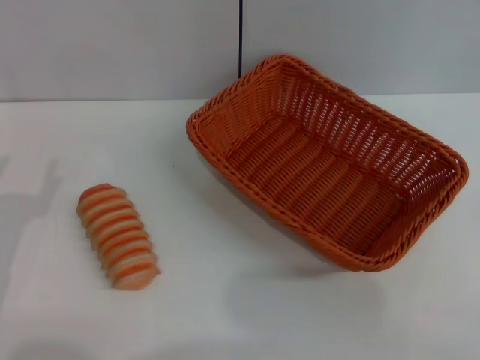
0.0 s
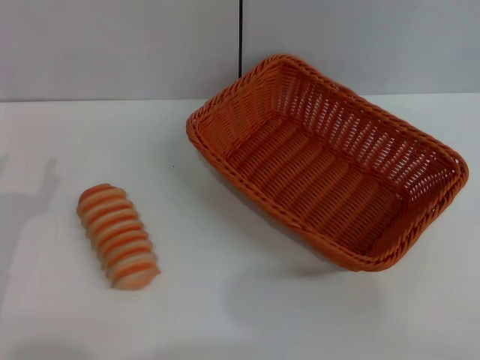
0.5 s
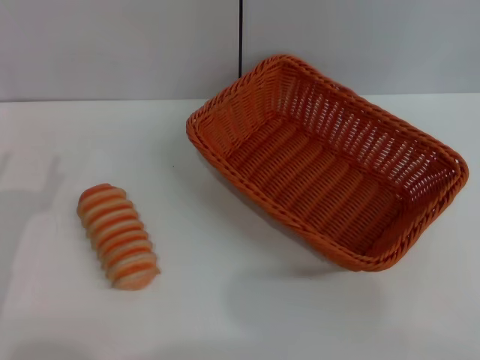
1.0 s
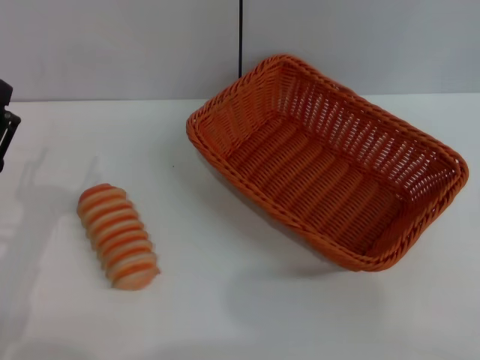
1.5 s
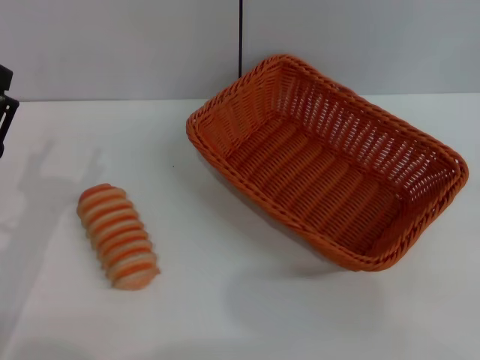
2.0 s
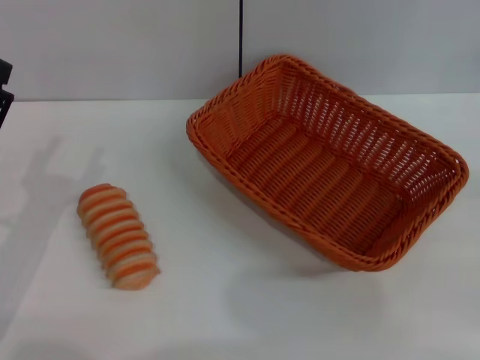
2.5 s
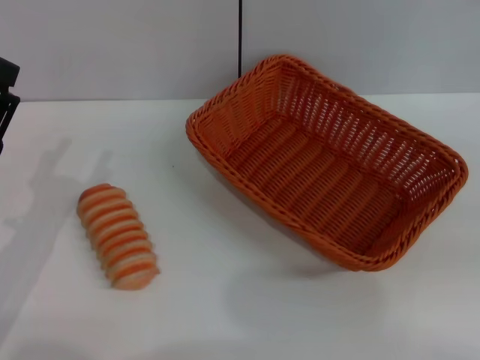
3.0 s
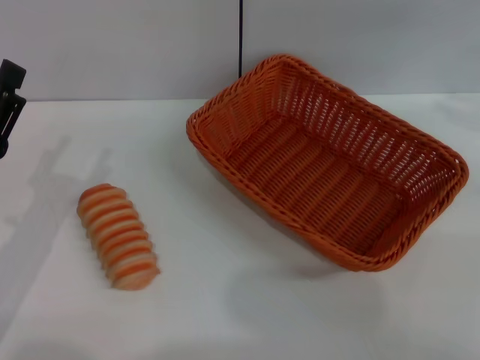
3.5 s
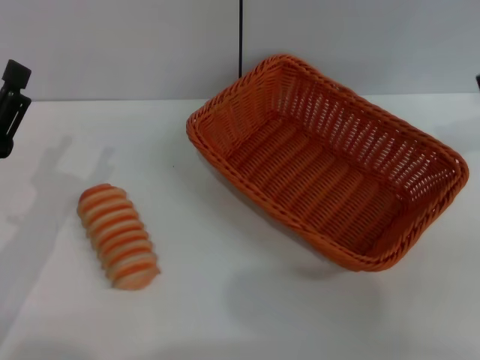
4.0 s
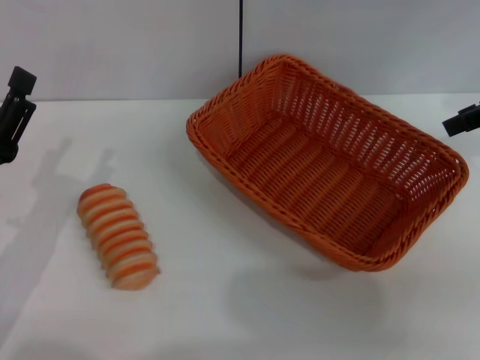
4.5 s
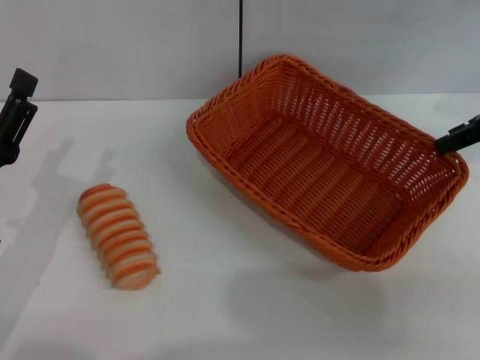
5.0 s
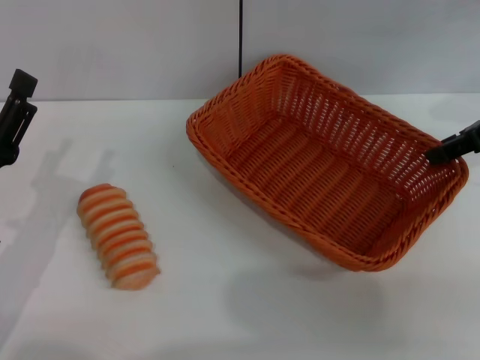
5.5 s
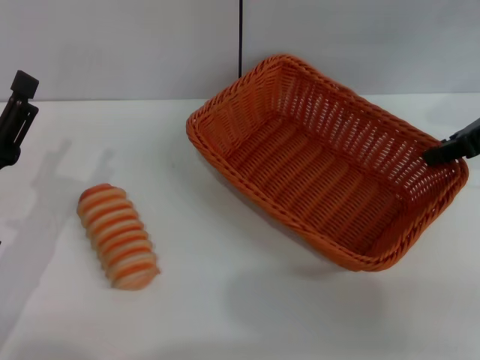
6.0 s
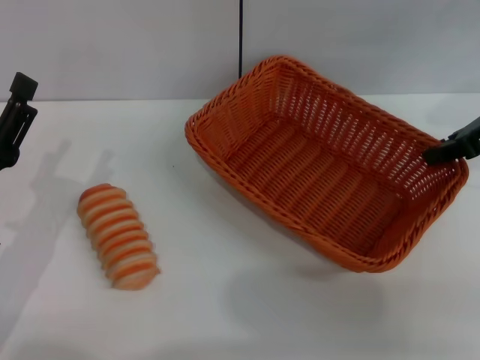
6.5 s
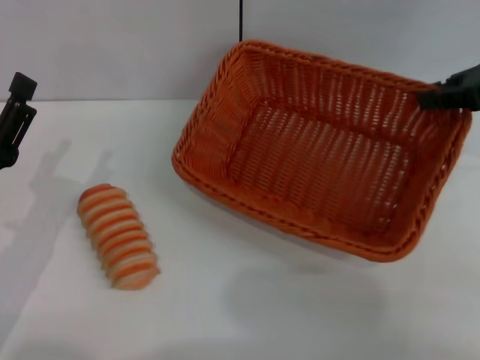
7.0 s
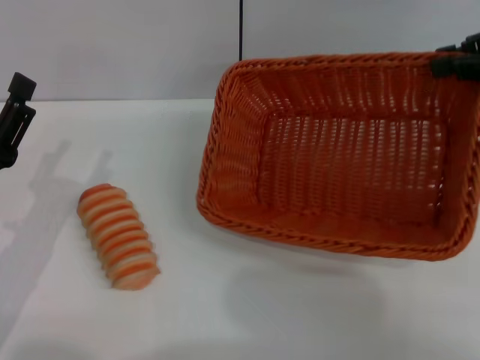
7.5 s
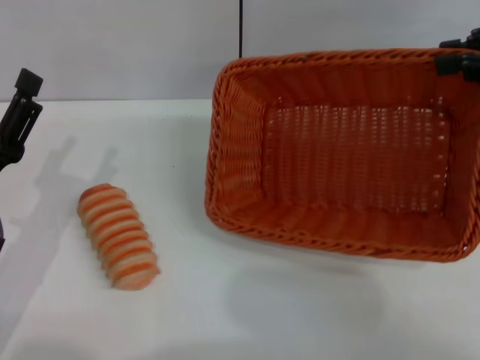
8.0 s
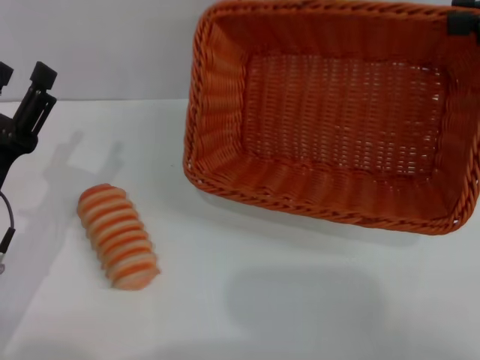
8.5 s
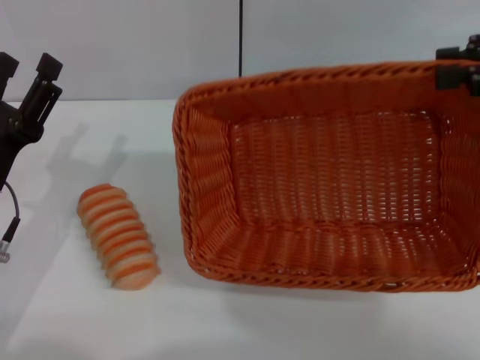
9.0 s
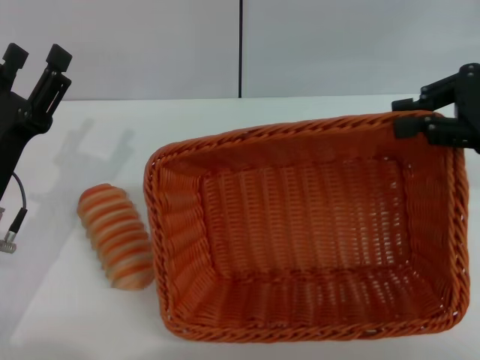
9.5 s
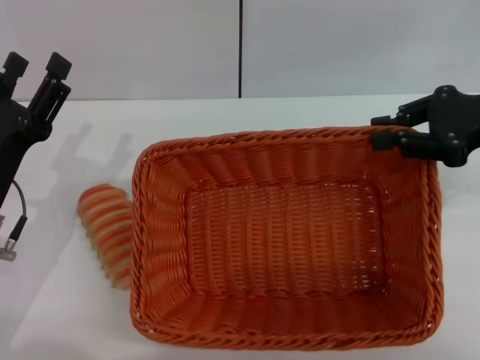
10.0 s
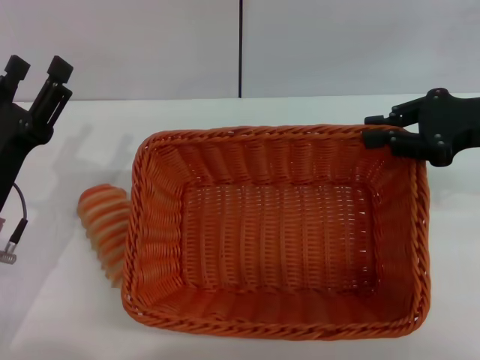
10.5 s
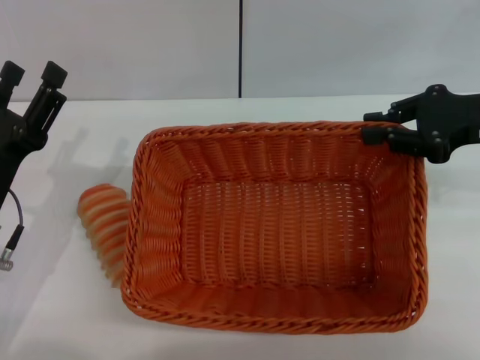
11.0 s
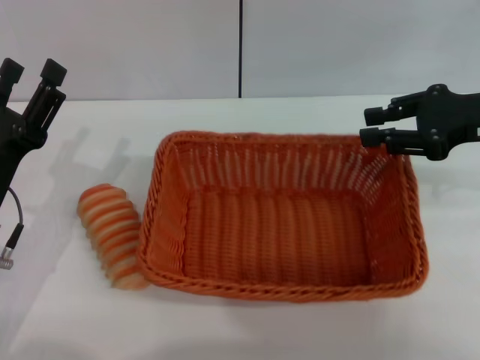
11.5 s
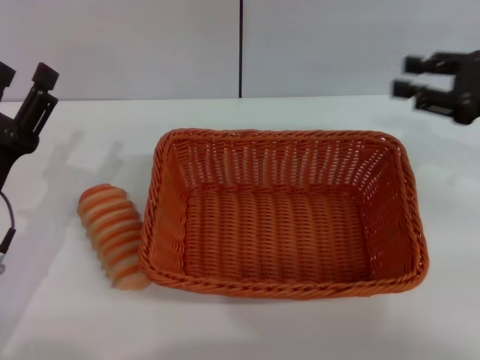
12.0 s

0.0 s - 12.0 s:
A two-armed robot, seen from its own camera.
Step, 0.0 s - 8.0 s: Pick up the light basket with the right gripper.
2.0 s - 4.0 s: The right gripper goes roughly 25 cm upward, forward and to the left.
4.0 s - 6.0 s: The right gripper moves downward, about 10 cm, and closes.
6.0 s - 8.0 s: The right gripper travels upward by some 5 cm, and closes its fingers.
8.0 s - 10.0 s: The right gripper is displaced downward by about 10 cm.
10.0 s - 12.0 s: The right gripper opens up.

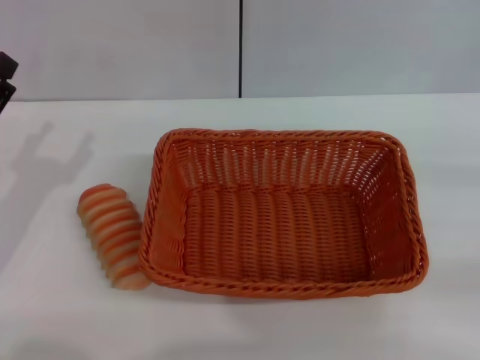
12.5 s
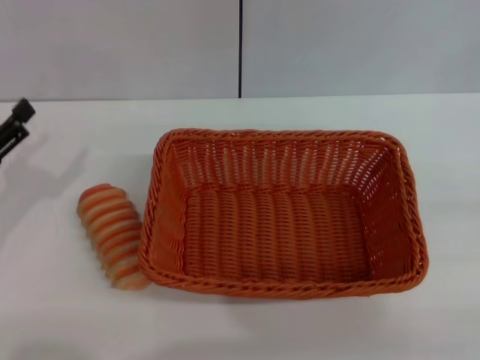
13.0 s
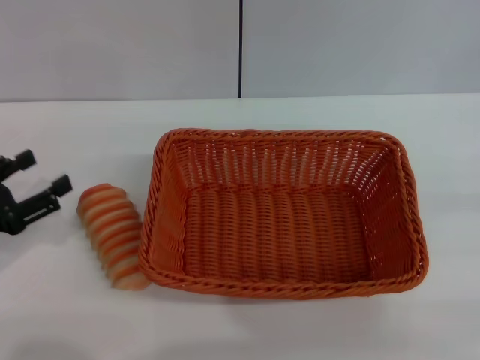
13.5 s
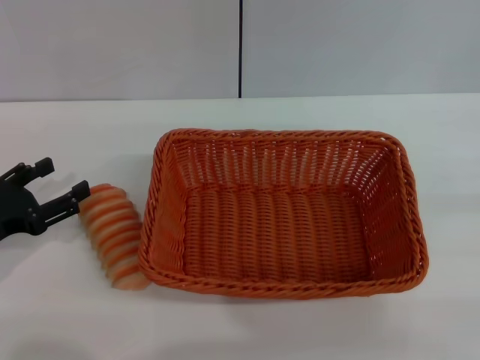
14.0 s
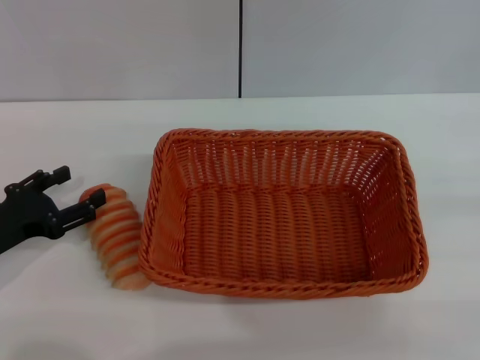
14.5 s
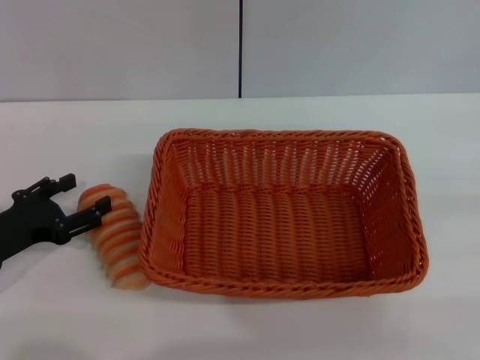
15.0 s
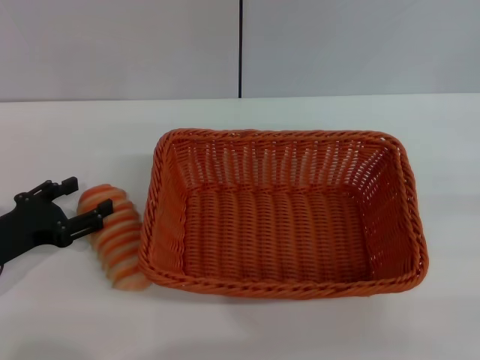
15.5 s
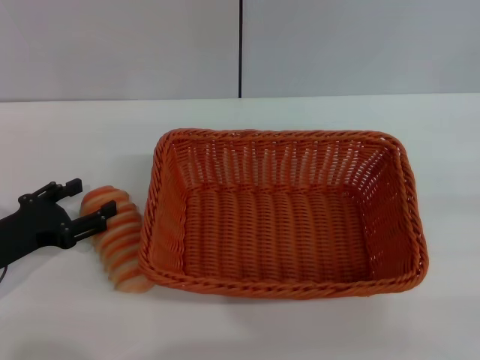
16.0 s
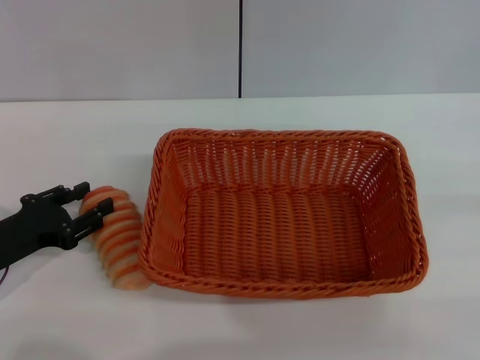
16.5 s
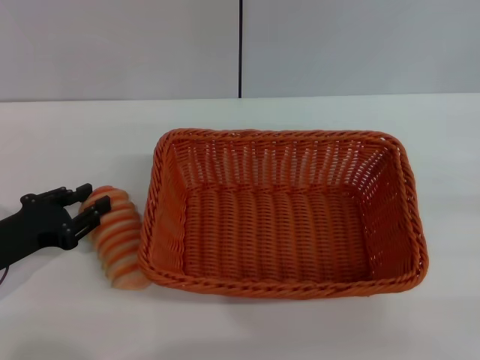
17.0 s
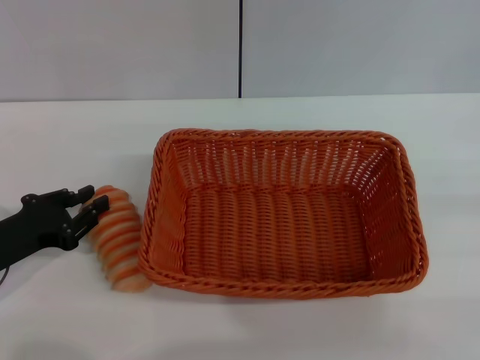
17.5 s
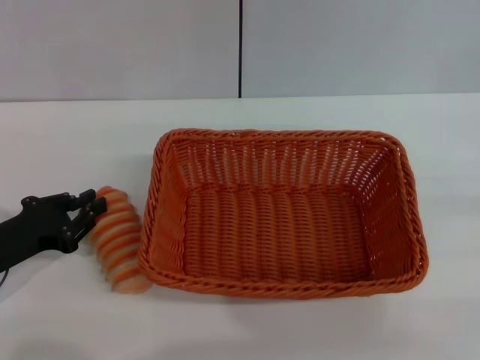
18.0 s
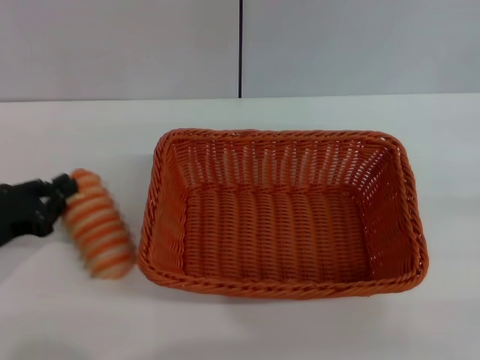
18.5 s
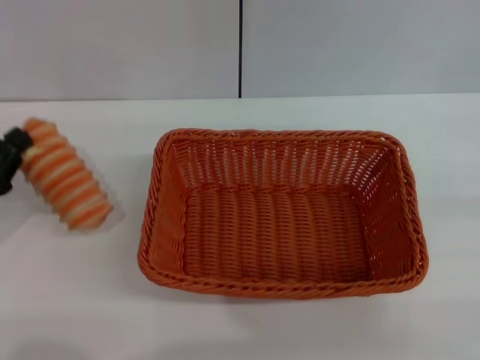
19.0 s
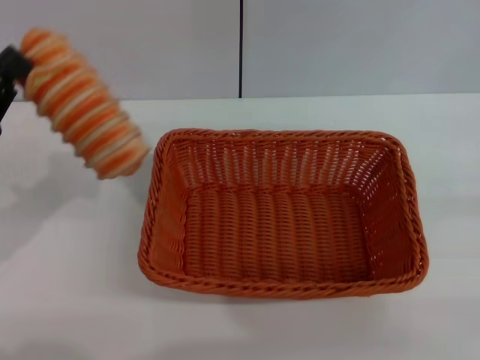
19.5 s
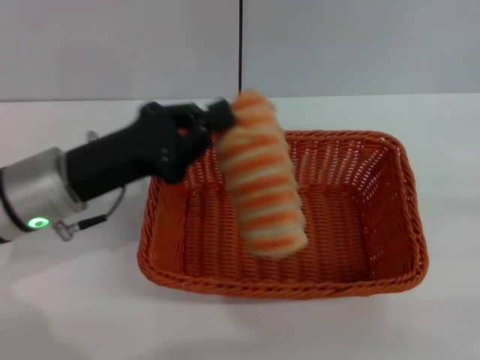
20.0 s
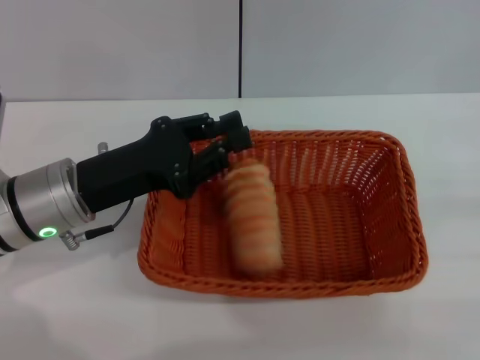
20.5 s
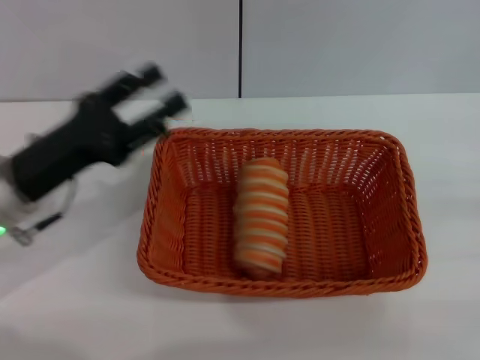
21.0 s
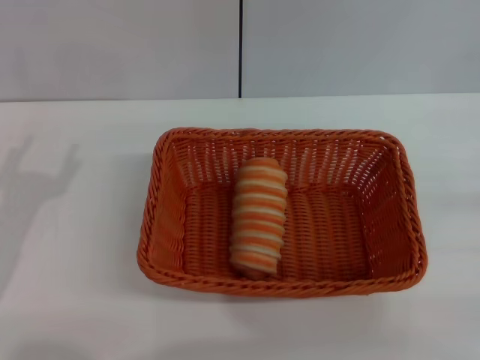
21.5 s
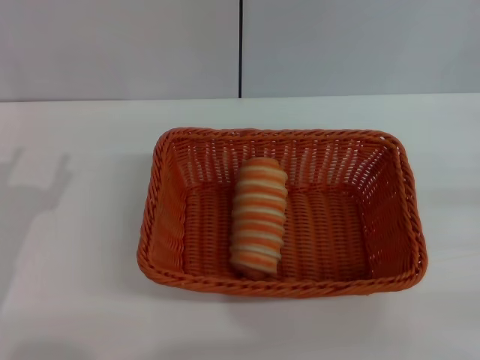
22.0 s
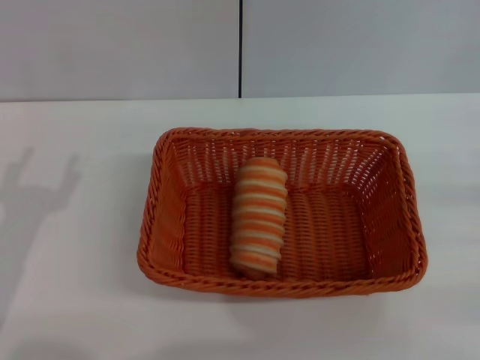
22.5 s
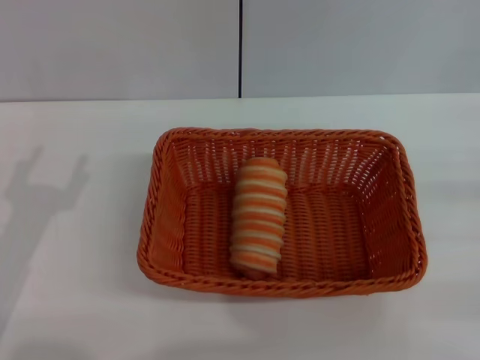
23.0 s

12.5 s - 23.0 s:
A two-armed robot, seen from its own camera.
Step, 13.0 s - 19.0 s: Pick up the long bread with the left gripper.
Step, 19.5 s - 22.0 s: Place the long bread into the light basket with the left gripper.
14.5 s - 16.5 s: Neither gripper changes place.
16.5 s - 19.0 s: The left gripper ends up roughly 5 cm from where it was, and closes.
19.0 s - 21.0 s: The left gripper shifts some 10 cm to the right, and opens its fingers.
21.0 s - 23.0 s: The left gripper goes some 10 cm backward.

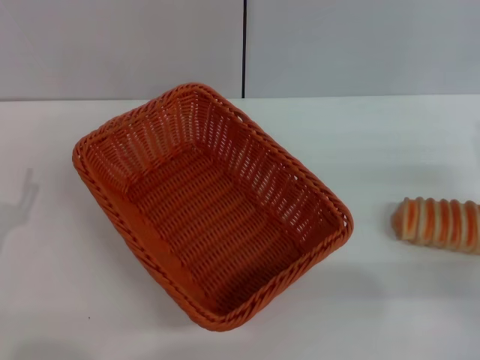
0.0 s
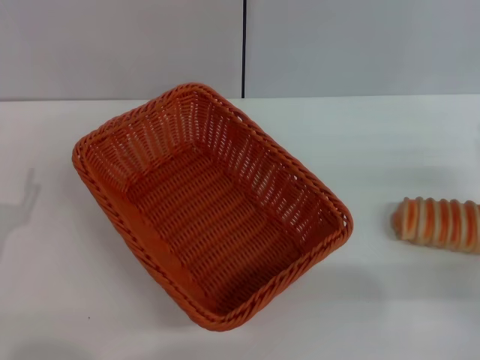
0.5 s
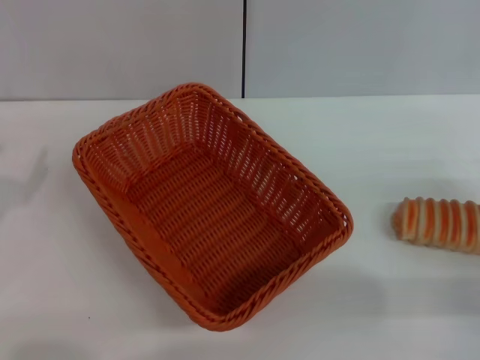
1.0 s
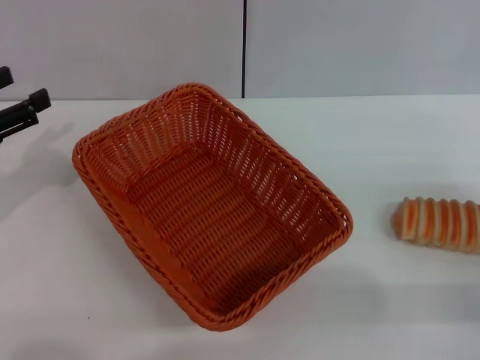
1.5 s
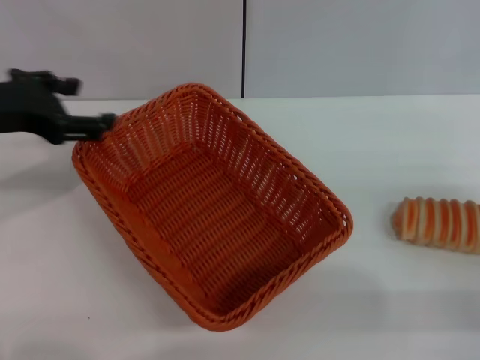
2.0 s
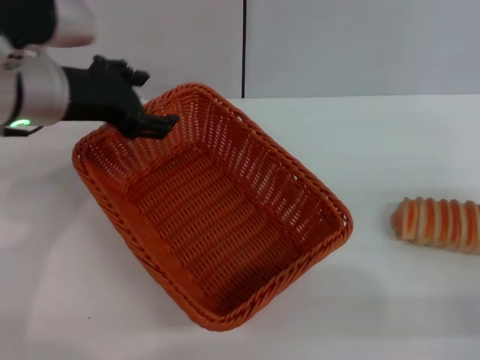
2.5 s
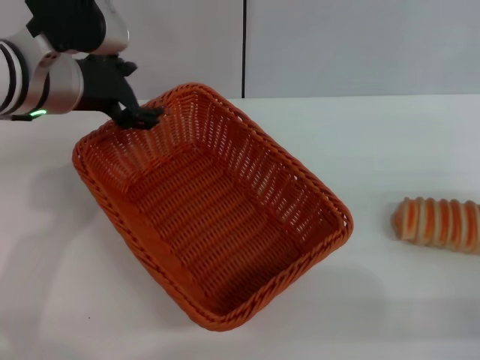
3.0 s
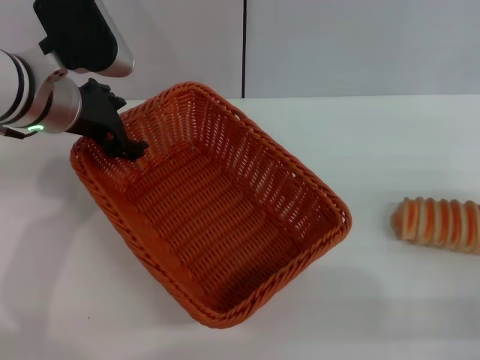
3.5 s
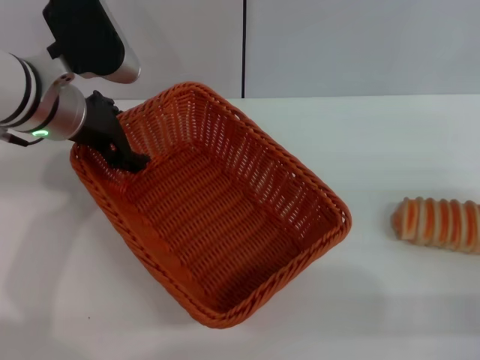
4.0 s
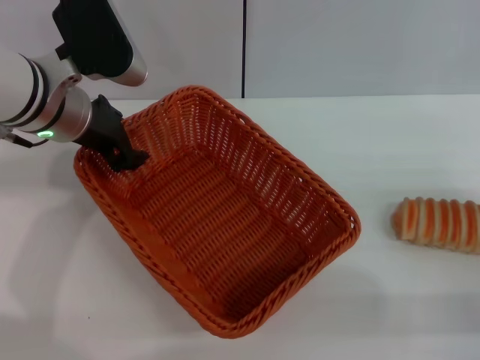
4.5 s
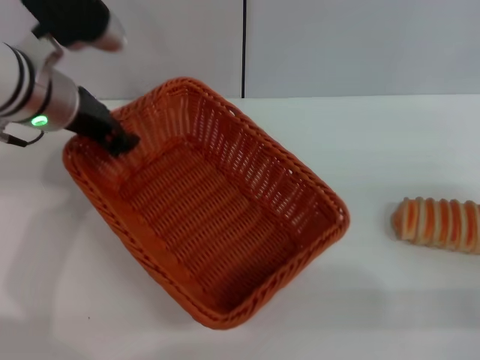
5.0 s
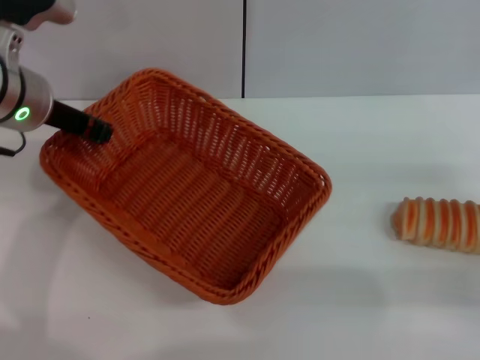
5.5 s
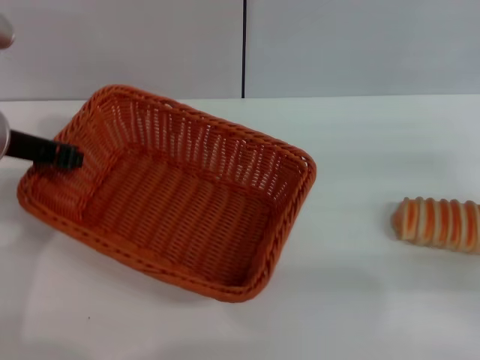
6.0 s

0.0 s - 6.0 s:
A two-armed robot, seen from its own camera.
Step, 0.0 s - 5.0 s: Pick up the light basket with the left gripper.
0.0 s - 2.0 s: The left gripper goes some 20 cm upward and forward.
2.0 s - 4.0 s: The left gripper moves to the right and forward, roughly 10 cm.
4.0 s - 6.0 s: The right gripper changes place by approximately 5 cm; the left gripper shifts approximately 5 cm to the left, and closes up.
